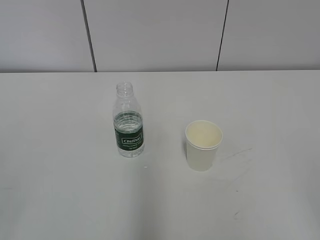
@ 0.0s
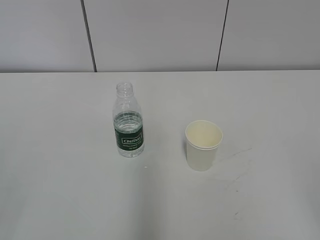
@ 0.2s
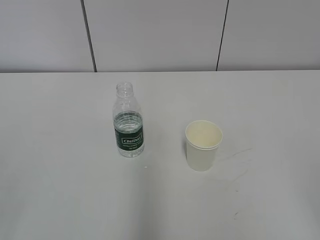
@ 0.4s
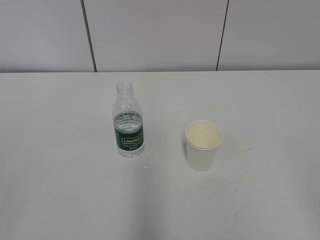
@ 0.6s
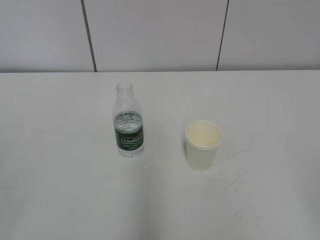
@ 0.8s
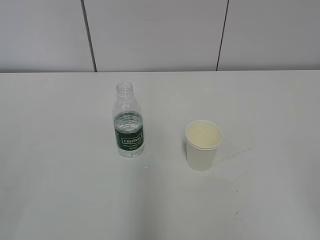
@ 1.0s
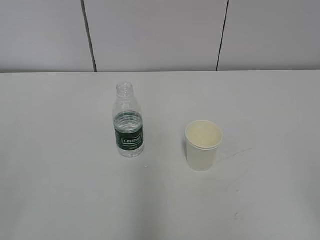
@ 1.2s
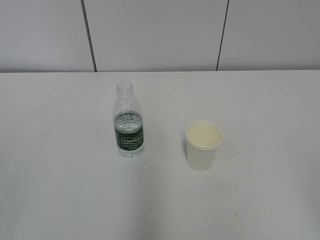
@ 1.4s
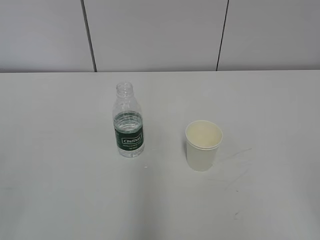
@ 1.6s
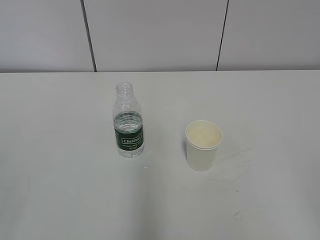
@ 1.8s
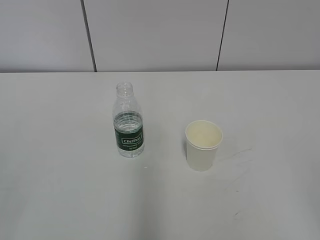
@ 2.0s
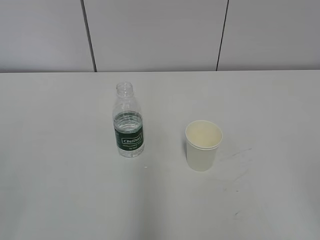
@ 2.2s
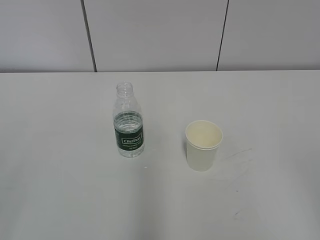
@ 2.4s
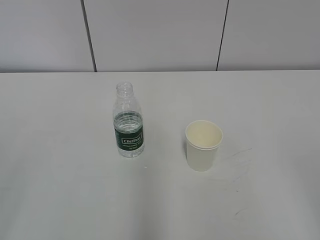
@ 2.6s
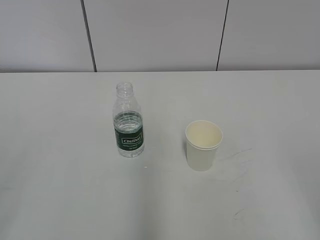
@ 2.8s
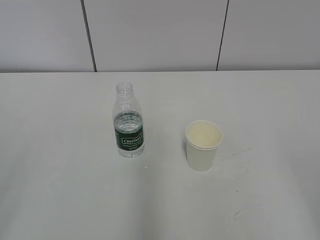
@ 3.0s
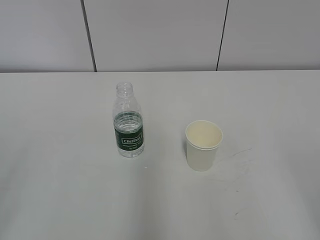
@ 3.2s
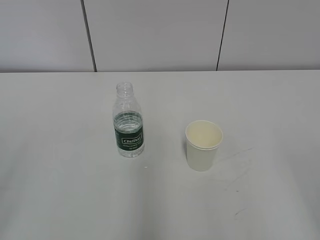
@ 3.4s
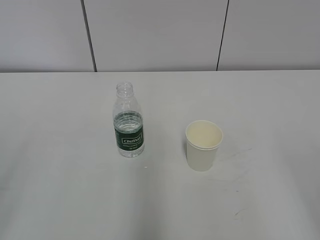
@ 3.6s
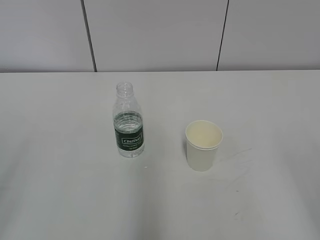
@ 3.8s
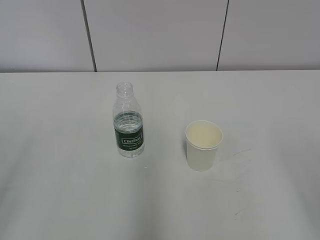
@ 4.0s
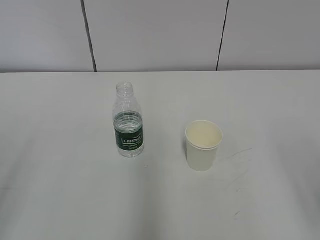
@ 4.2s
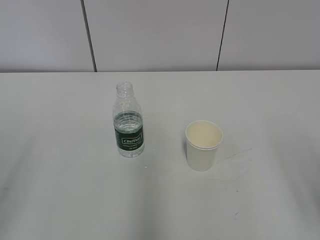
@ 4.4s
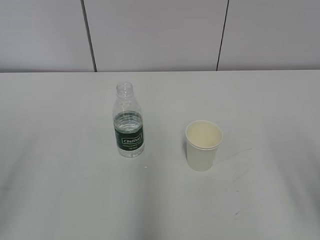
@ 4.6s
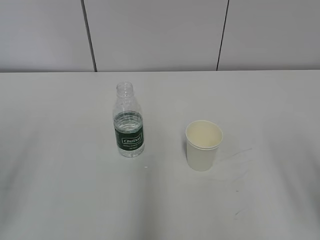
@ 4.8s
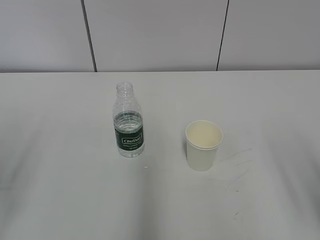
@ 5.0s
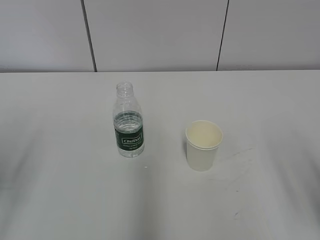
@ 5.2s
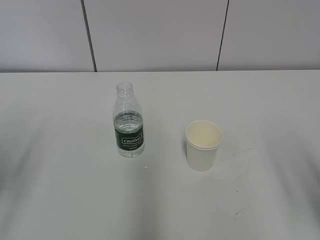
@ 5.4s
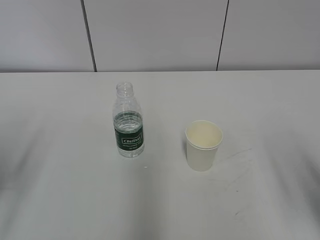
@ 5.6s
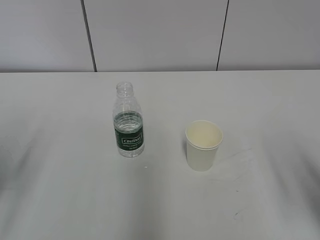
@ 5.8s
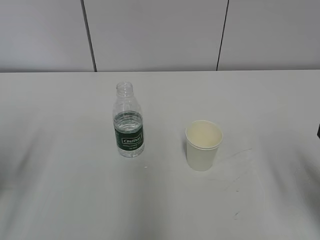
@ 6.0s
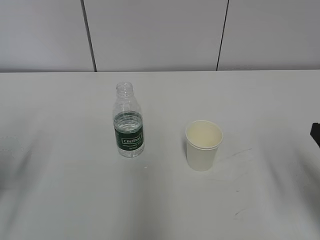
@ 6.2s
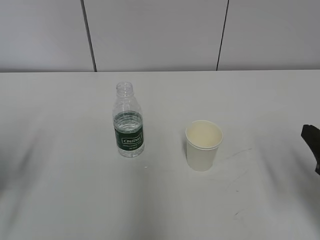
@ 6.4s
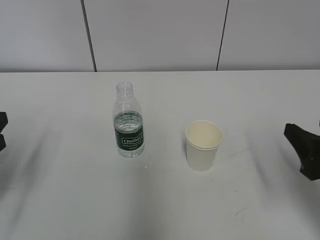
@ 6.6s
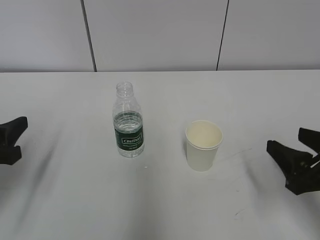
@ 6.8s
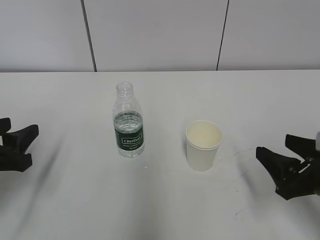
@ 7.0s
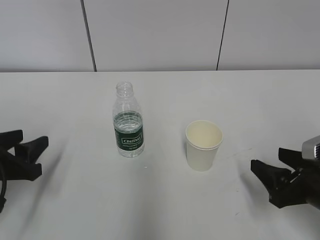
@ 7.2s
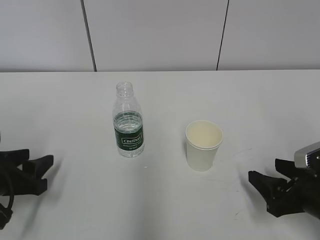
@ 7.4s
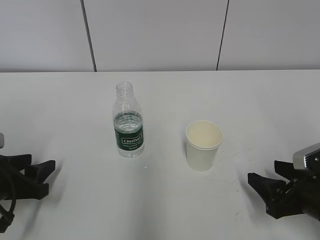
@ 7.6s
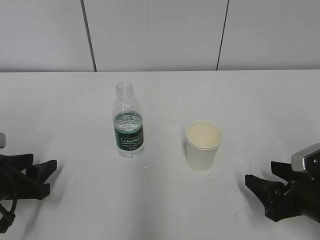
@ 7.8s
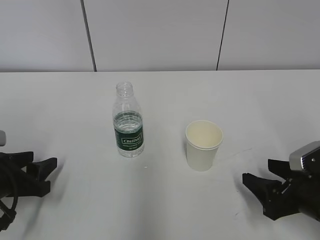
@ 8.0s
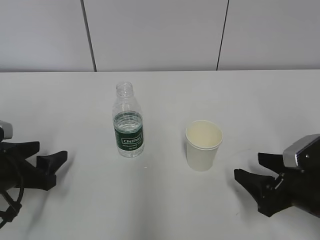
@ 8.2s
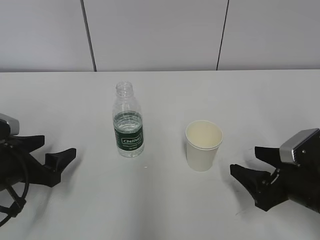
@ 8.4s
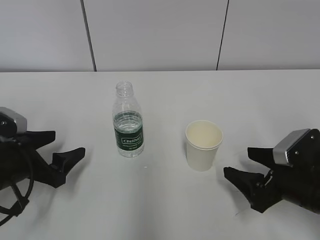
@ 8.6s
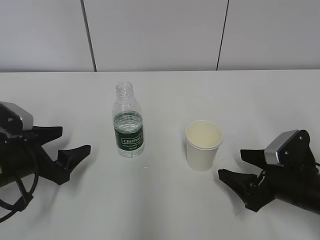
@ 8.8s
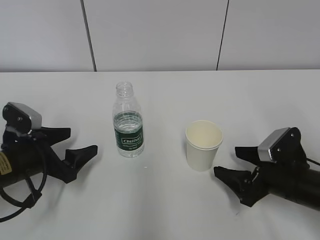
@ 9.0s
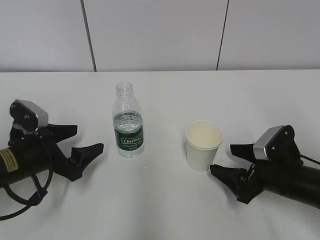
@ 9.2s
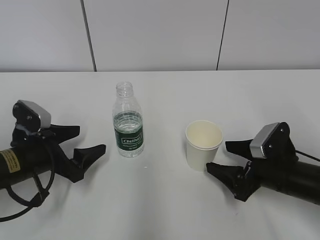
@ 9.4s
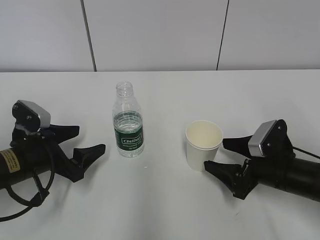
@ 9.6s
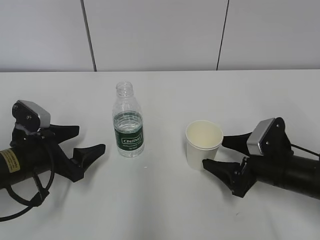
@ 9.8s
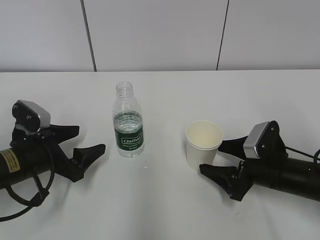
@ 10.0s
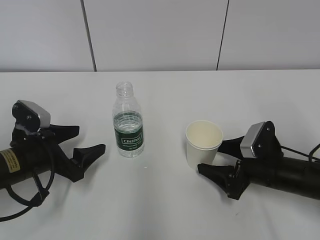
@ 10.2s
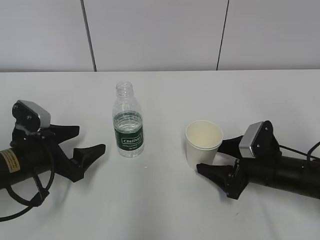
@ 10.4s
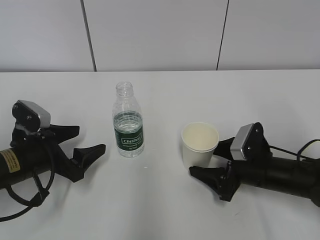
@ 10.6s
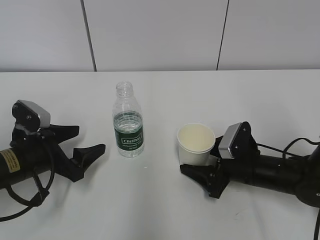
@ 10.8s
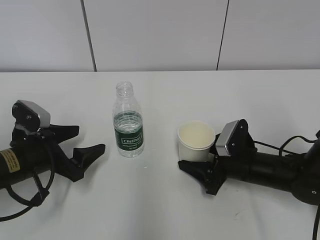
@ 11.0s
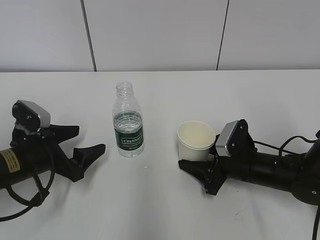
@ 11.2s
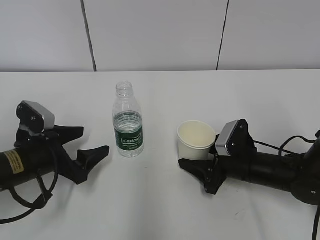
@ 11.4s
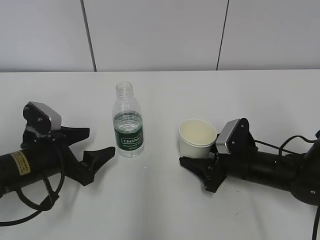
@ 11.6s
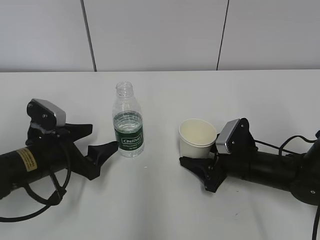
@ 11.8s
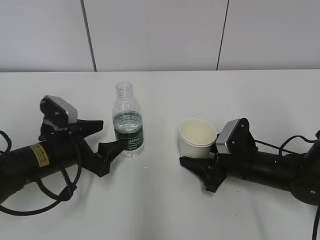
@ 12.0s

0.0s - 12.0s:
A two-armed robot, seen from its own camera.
Step, 0.0s - 11.8s: Grab the paper cup with the right hand.
4.4s - 6.0s: The right gripper shifts approximately 5 cm forward.
6.0s - 7.6s: The right gripper is displaced downward and forward by approximately 15 cm. The left gripper travels downward by roughly 10 cm.
7.6s - 9.0s: The right gripper goes some 5 cm forward, and opens up. The left gripper changes place by approximately 5 cm, and opens up.
9.0s - 10.4s: The grippers stay close to where they were, moving slightly.
10.4s - 12.0s: The right gripper closes up.

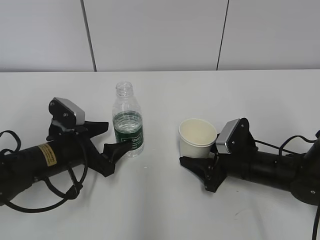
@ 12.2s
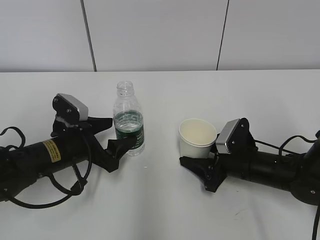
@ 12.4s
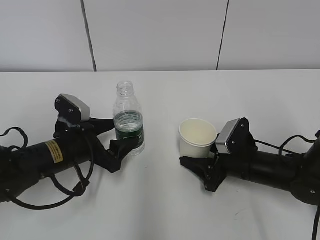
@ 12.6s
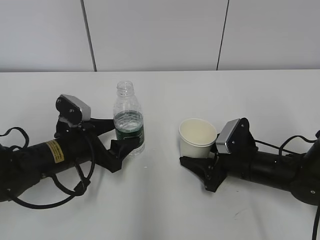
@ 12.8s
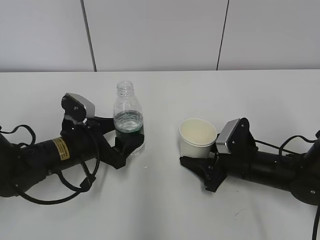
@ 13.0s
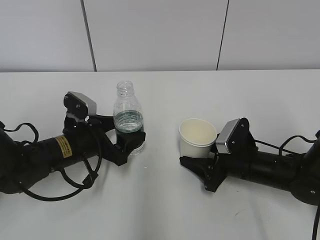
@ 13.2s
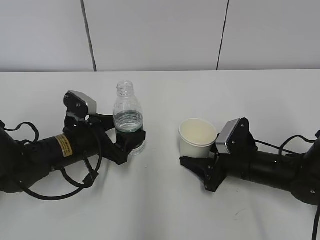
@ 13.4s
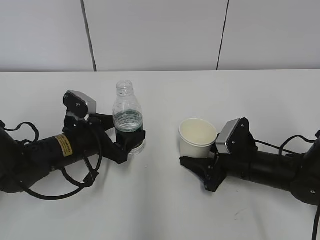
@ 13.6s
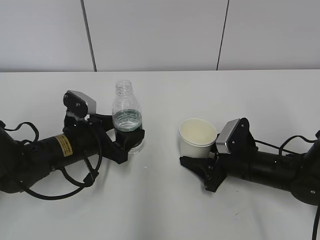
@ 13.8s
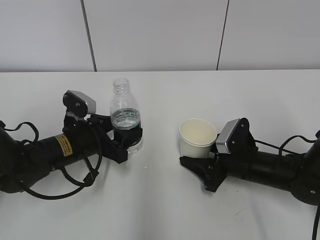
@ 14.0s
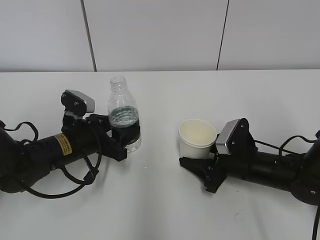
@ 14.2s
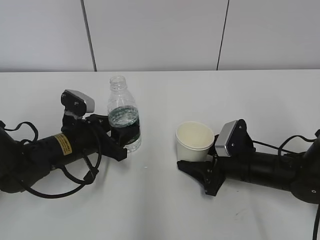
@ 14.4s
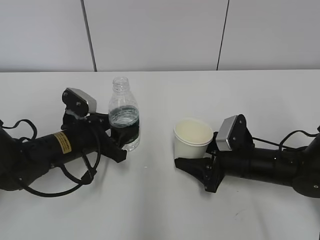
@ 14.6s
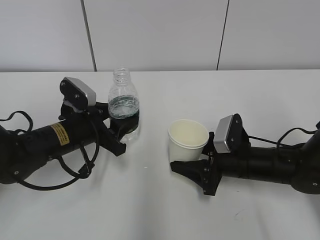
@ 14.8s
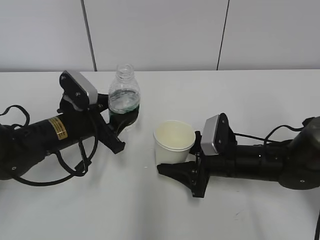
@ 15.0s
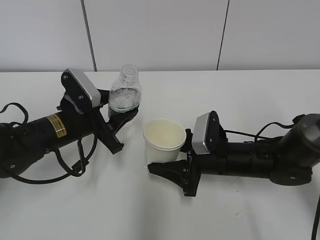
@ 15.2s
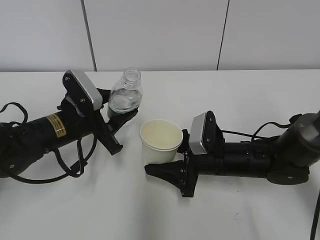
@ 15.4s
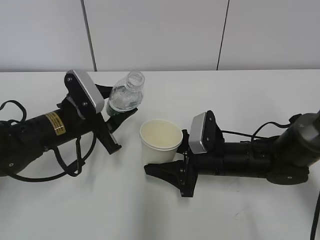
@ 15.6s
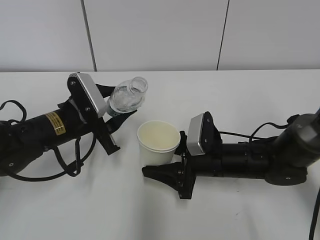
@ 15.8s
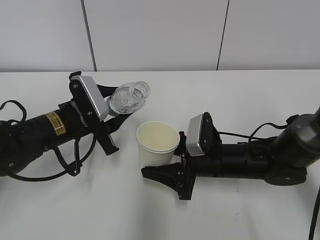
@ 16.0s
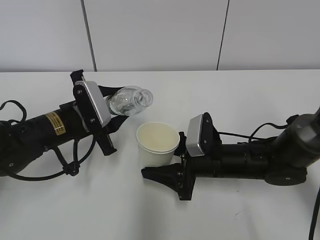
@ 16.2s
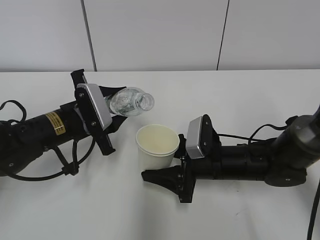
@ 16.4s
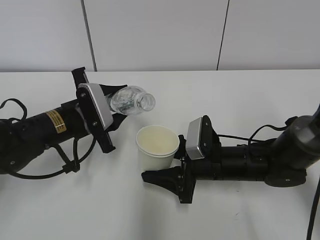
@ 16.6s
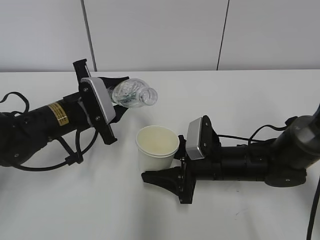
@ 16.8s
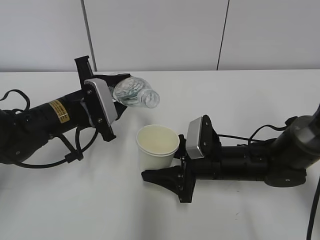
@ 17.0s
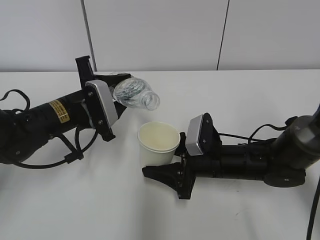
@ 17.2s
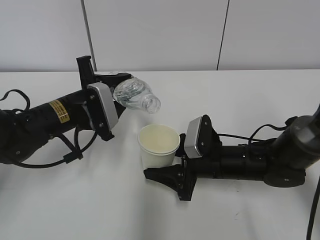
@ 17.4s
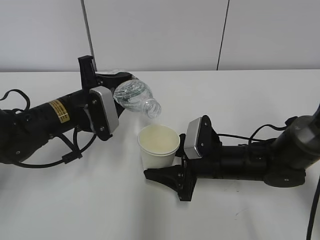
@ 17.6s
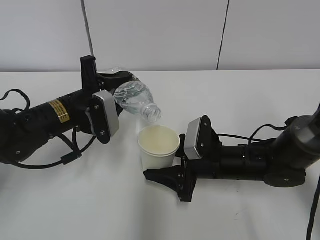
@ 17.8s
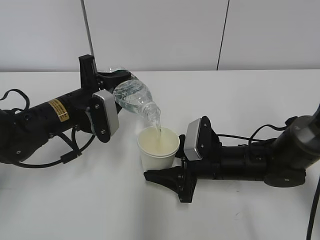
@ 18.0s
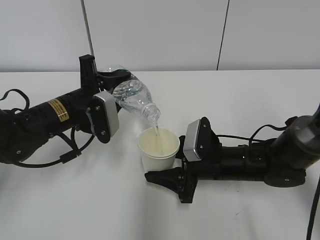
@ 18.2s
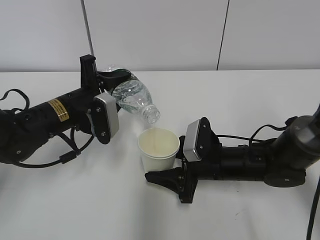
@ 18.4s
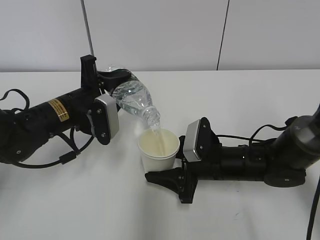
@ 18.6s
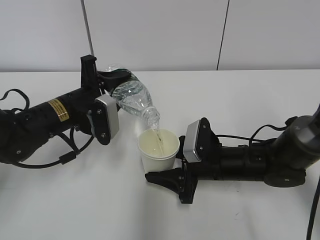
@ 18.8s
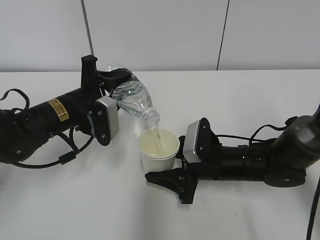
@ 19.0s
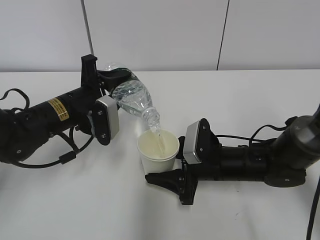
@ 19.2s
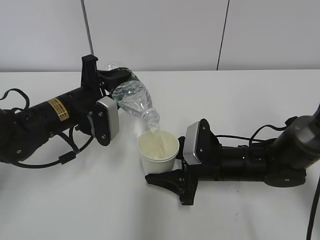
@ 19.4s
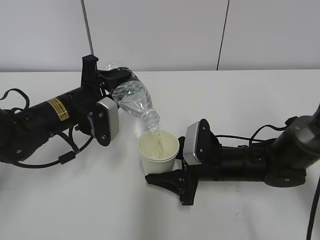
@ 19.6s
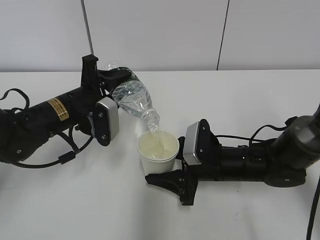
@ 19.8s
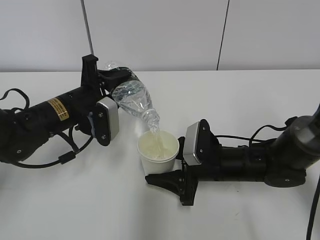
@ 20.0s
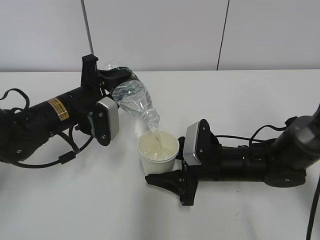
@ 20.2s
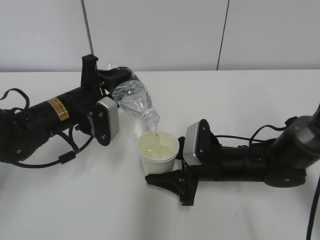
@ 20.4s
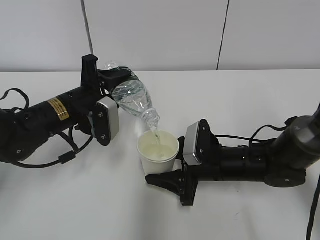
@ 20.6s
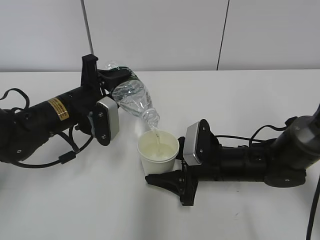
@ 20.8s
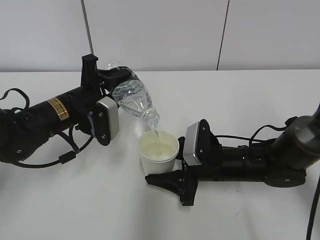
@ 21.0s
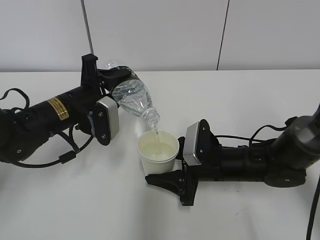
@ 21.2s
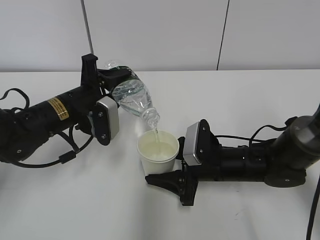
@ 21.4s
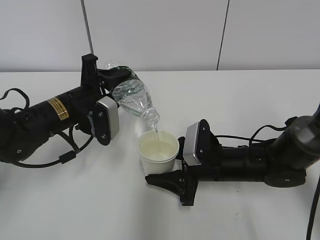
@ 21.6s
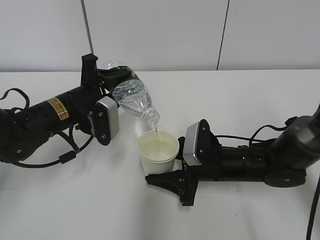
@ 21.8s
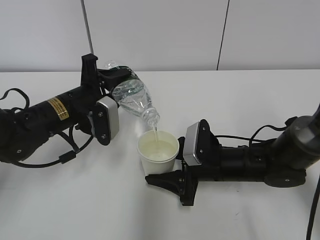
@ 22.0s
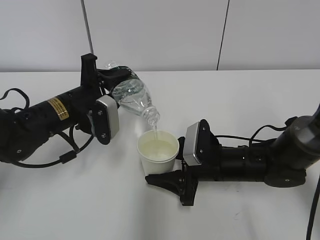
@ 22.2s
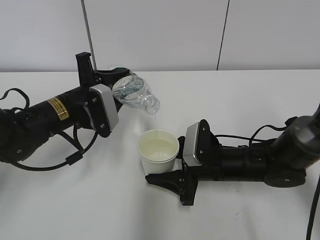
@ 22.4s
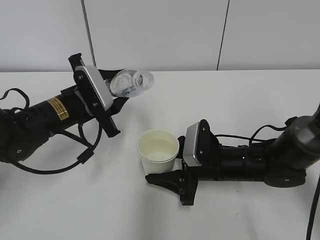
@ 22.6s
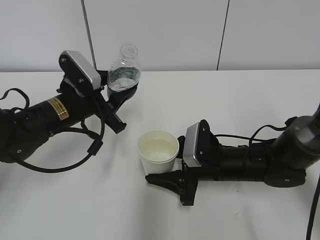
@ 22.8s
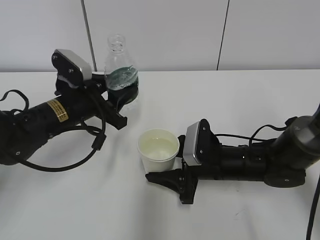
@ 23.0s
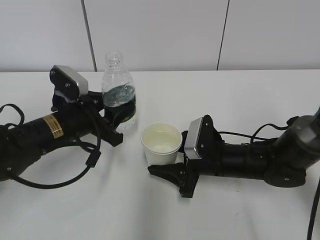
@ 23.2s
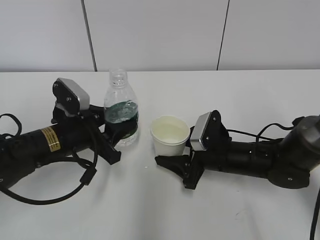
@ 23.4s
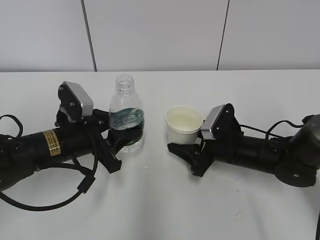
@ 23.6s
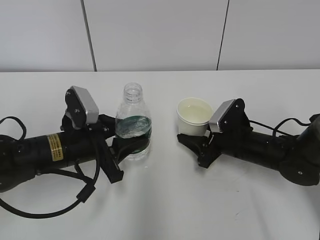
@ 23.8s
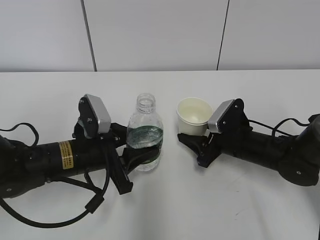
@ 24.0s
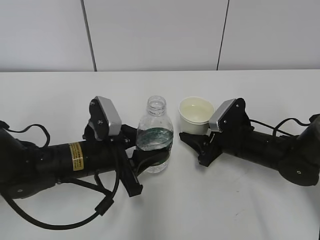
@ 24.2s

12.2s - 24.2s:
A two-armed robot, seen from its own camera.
Step, 12.2s - 14.8s: Lift the paper cup with the right hand.
Step, 15.0s - 18.6s: Fill water with the right hand.
Step, 15.0s - 18.6s: Pour water with the left hand.
Step, 22.4s - 22.6s: Place the paper cup with the right hand.
12.2s - 13.8s: The grippers make only small movements.
13.8s - 15.2s: The left gripper closes up, while the right gripper moves to the left, some 5 cm.
18.2s - 19.8s: The grippers stay close to where they were, moving slightly.
19.8s - 21.2s: Both grippers stay about where they are.
22.6s - 24.2s: The left gripper is displaced backward by about 5 cm. The right gripper goes roughly 5 cm to the right.
